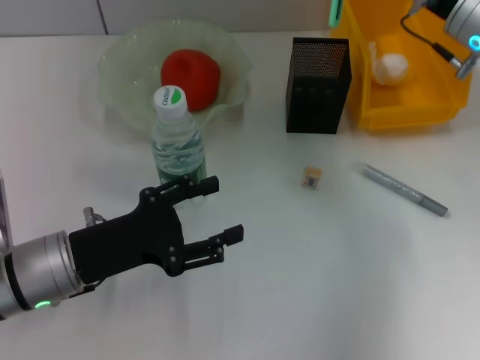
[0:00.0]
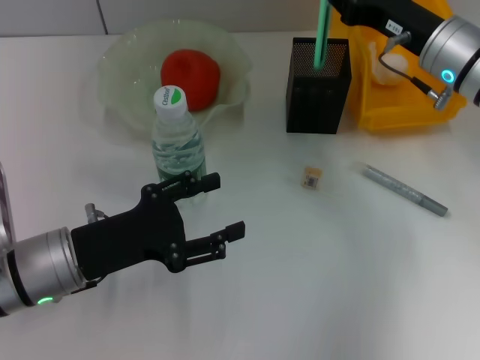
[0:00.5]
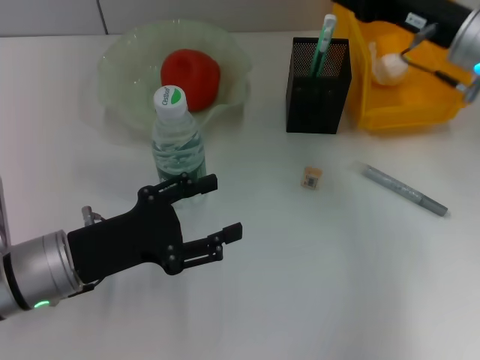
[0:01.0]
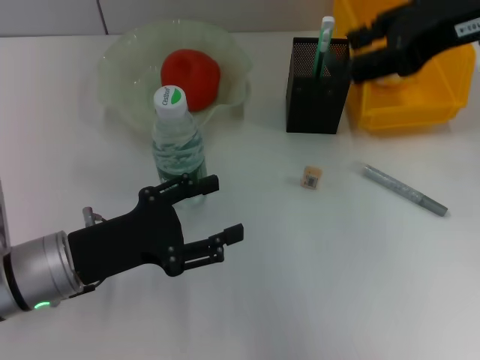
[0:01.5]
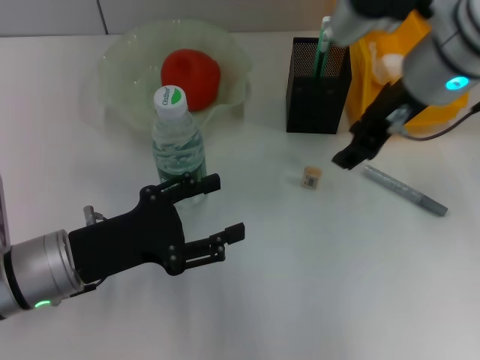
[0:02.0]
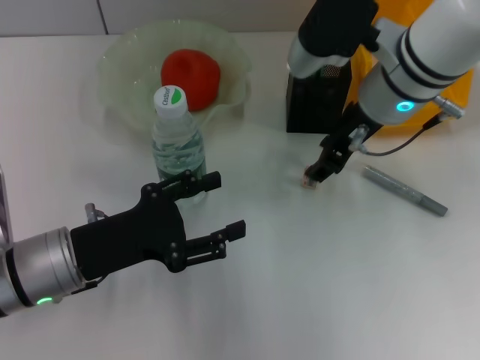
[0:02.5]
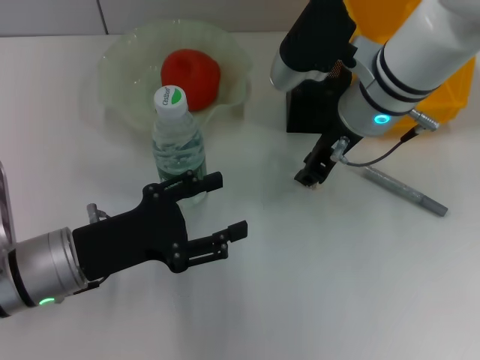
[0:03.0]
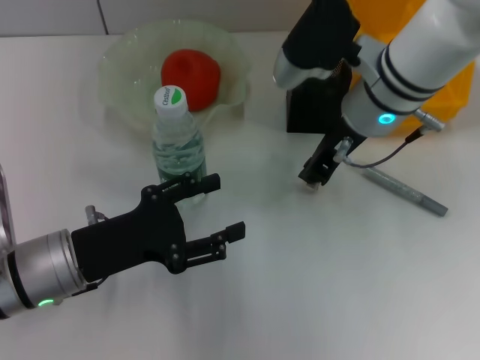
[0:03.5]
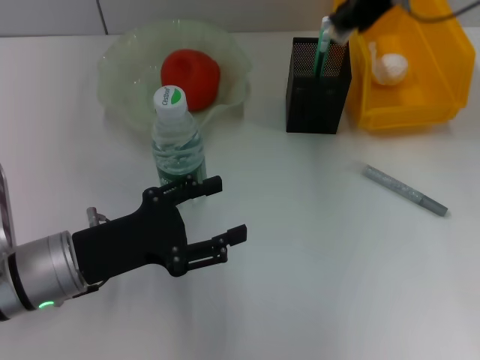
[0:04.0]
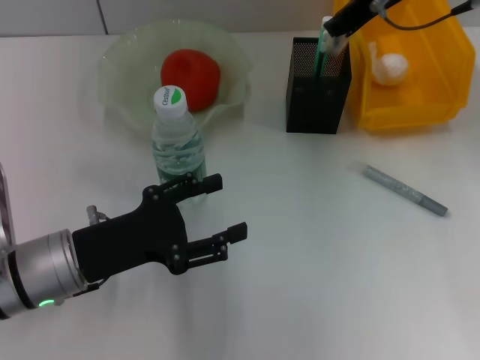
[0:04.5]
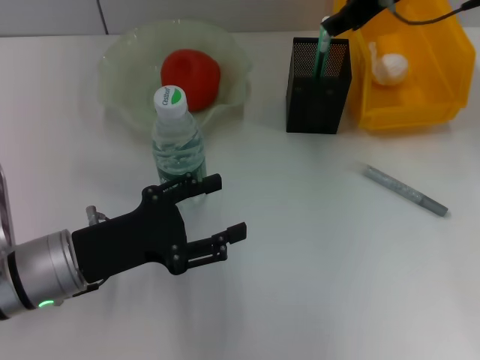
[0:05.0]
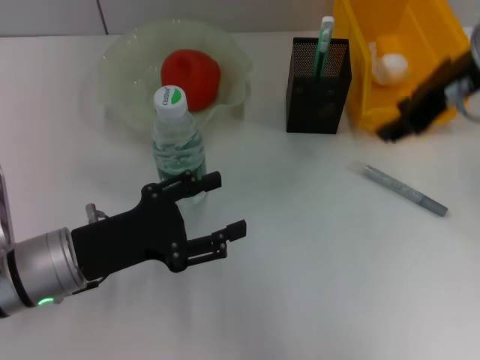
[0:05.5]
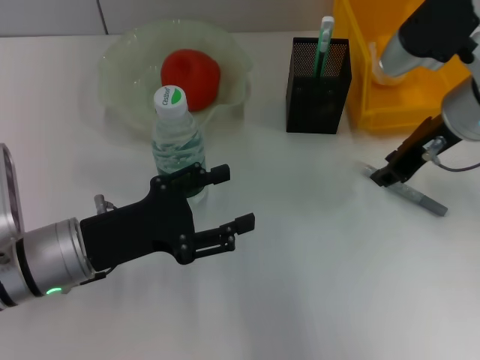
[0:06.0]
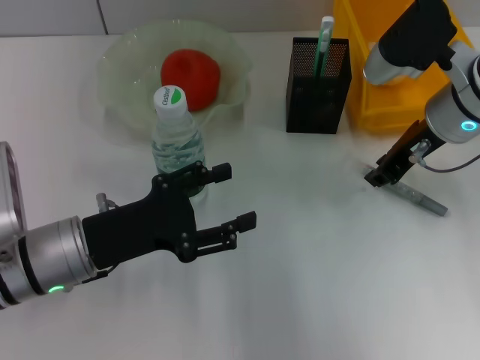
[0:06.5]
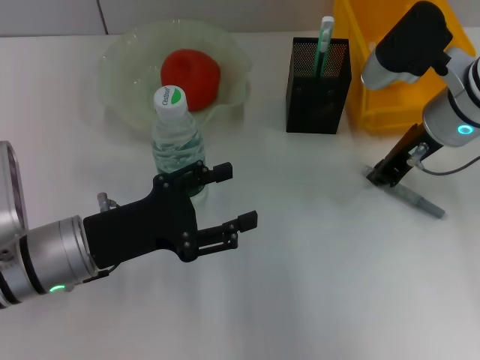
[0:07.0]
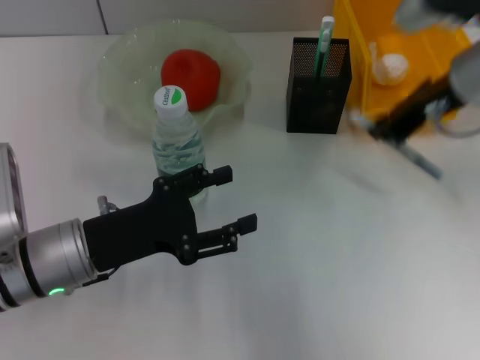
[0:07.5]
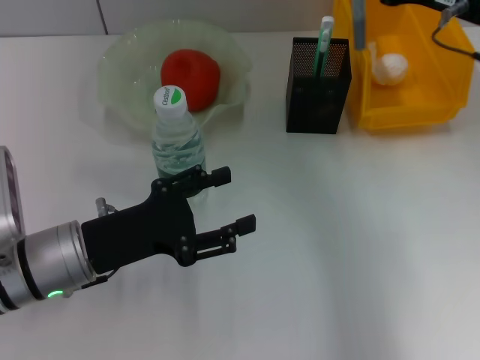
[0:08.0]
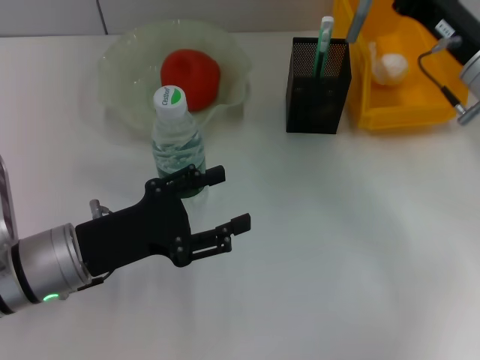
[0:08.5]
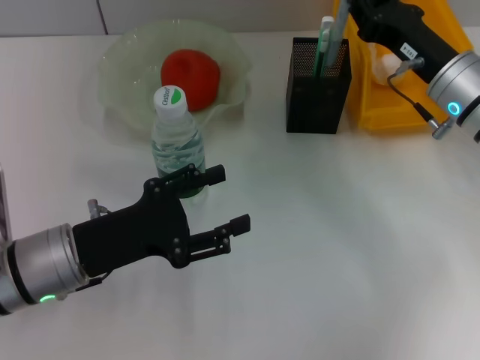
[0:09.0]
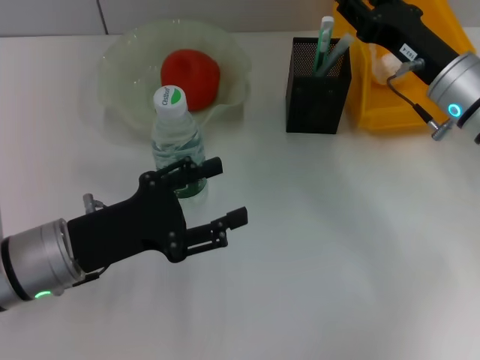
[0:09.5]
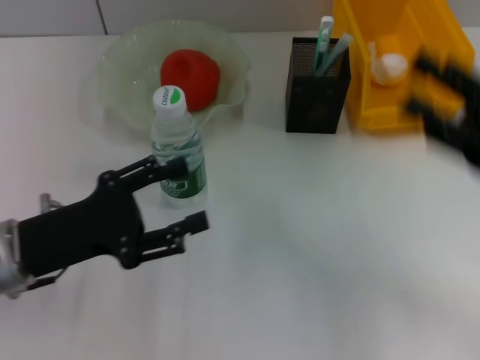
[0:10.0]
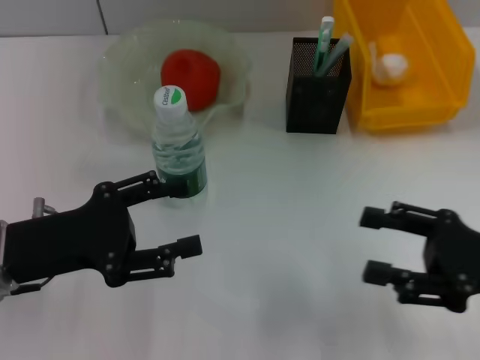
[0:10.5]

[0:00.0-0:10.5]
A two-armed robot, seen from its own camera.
Step, 0:01.0 to 0:03.0: Grab the eraser with the right hand.
Step, 0:03.5 to 0:04.5: Put the eraser into the pen holder with the right hand.
Step, 0:05.0 to 0:06.5: Grab the gray glue with the right hand.
Step, 0:07.5 to 0:09.0: Place the gray glue into the pen holder with the right hand.
0:00.0 to 0:02.0: The right gripper moves to the left, approximately 10 cm, goes upward and returns, about 15 cm each way, and opens its fingers.
0:02.0 to 0:04.0: The right gripper heads upward, covering some 10 cm, and closes up.
0:04.0 to 0:06.5: The right gripper moves downward, approximately 15 cm.
0:06.5 to 0:08.5: The right gripper moves some 5 cm upward and comes back.
0:08.5 to 0:10.5: The right gripper is displaced backward by approximately 15 cm, and opens its fingers; the left gripper changes place by about 5 cm.
